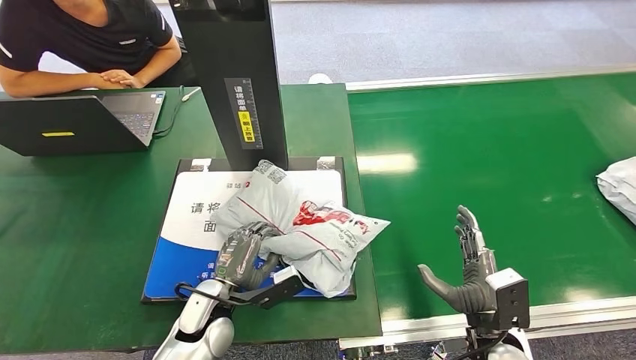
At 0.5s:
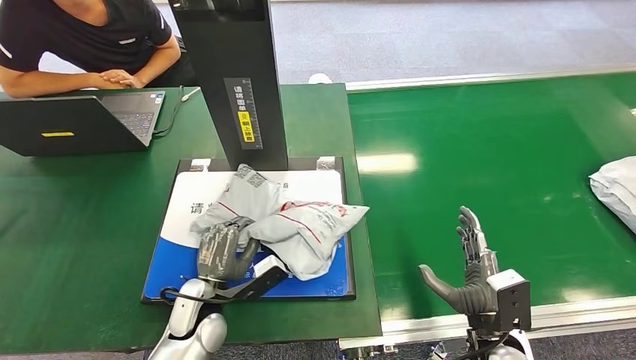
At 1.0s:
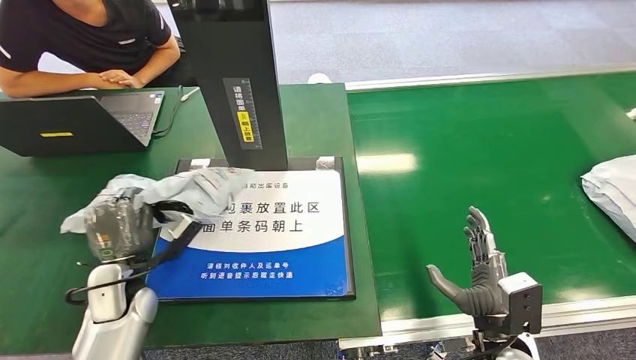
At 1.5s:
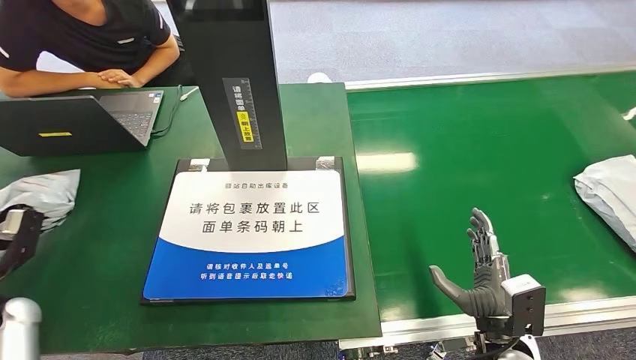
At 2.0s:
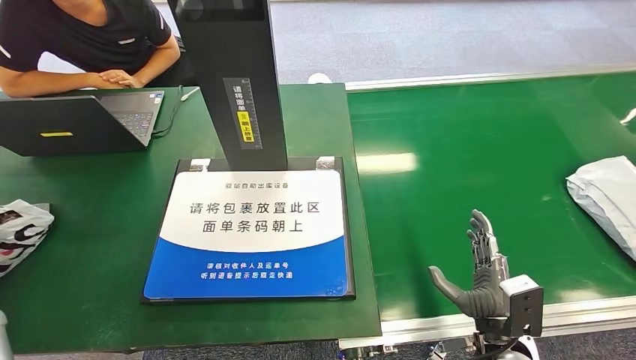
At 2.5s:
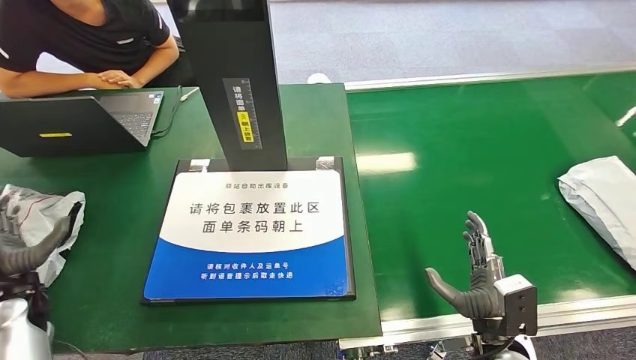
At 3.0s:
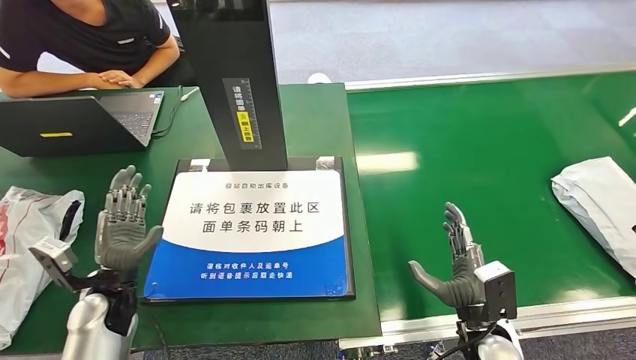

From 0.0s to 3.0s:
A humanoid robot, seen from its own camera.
Step, from 1.0s to 3.0s: Place the package into the parcel locker.
From 1.5s to 3.0s: The left hand moves to the right, roughly 15 cm.
